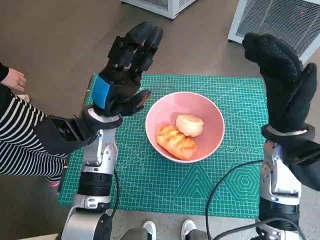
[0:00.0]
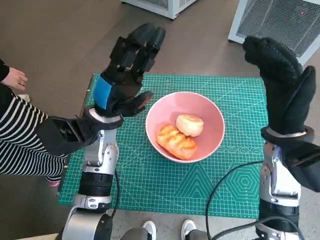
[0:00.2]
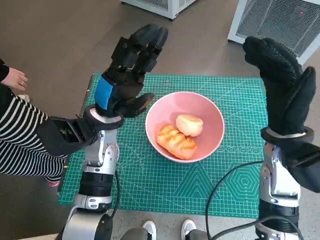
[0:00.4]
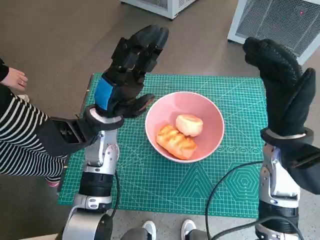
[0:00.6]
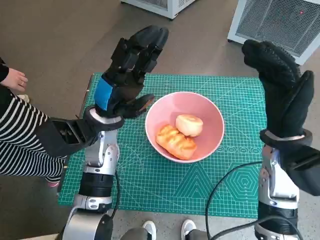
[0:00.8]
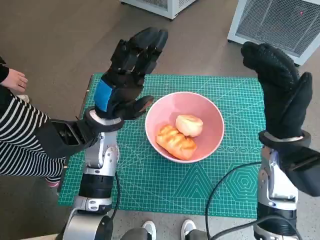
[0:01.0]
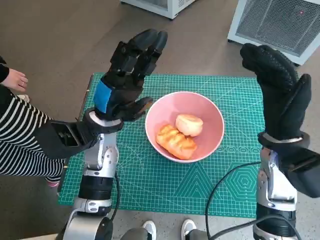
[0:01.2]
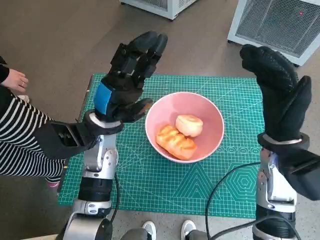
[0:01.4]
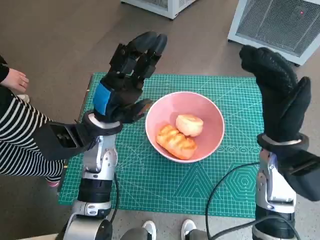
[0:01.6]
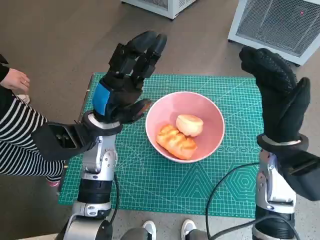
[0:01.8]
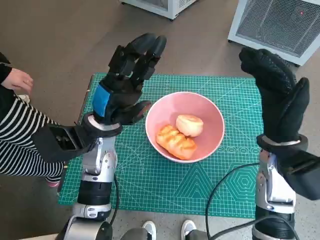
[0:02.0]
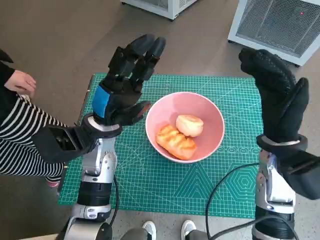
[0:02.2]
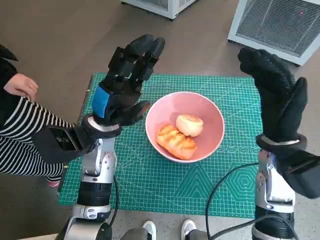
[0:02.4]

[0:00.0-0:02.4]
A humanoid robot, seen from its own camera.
Task of the whole recording: Push the bowl into the center of the table and put the bread into the bowl.
0:00.0 to 0:01.2: The hands stay close to where they were, moving slightly.
0:01.2 to 0:02.4: The two hands keep their place.

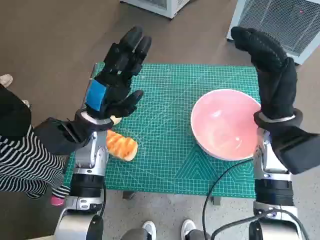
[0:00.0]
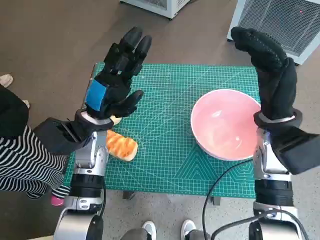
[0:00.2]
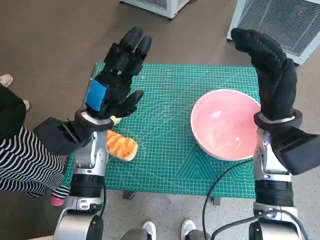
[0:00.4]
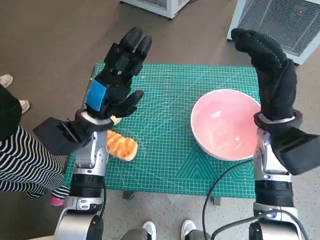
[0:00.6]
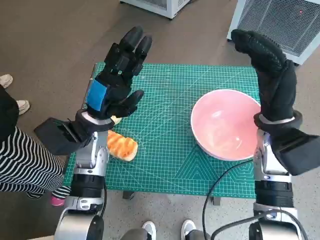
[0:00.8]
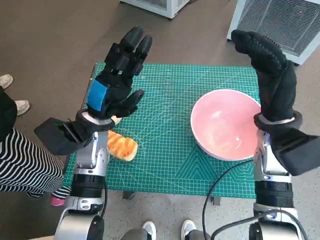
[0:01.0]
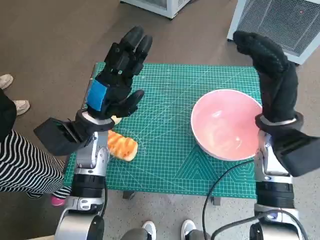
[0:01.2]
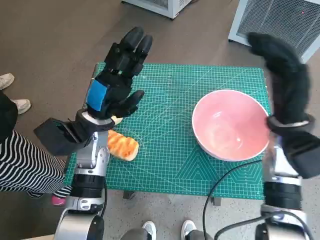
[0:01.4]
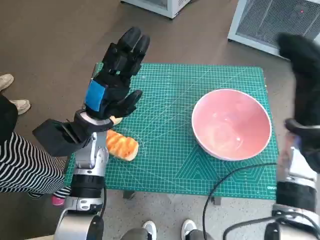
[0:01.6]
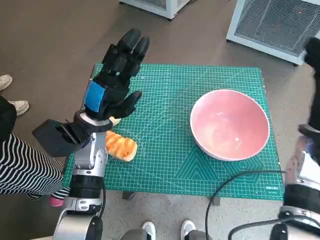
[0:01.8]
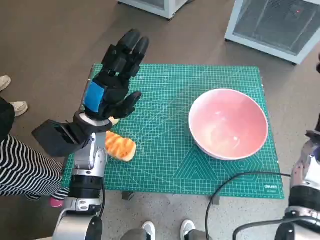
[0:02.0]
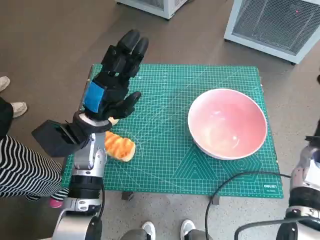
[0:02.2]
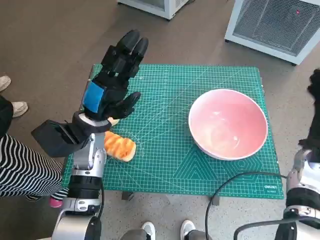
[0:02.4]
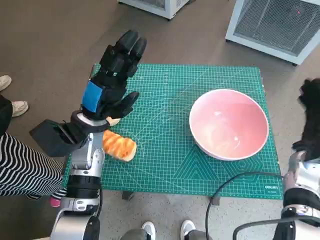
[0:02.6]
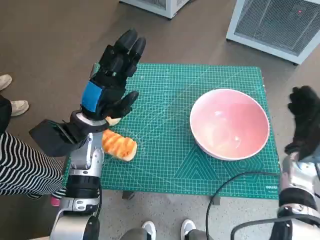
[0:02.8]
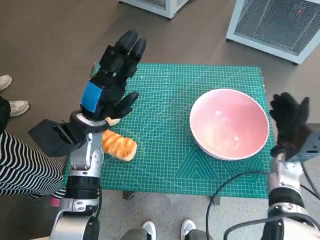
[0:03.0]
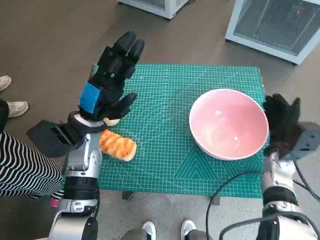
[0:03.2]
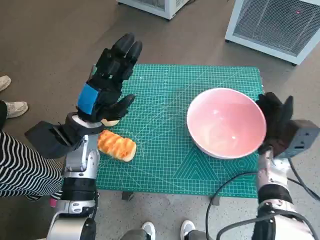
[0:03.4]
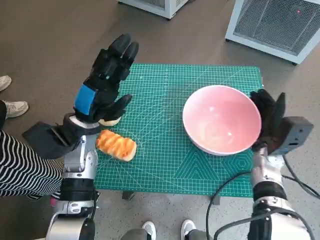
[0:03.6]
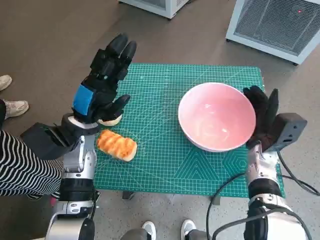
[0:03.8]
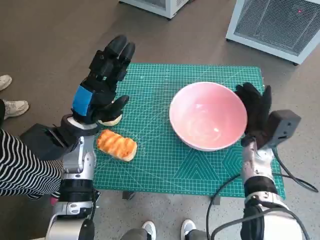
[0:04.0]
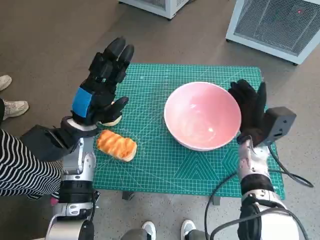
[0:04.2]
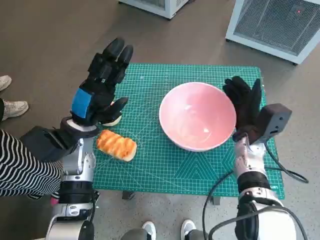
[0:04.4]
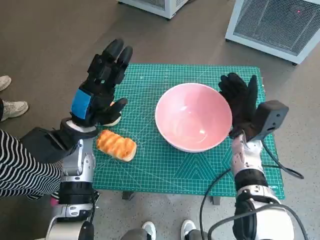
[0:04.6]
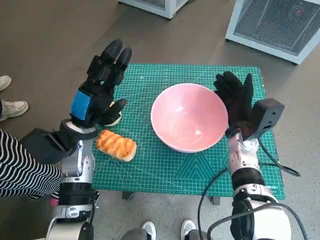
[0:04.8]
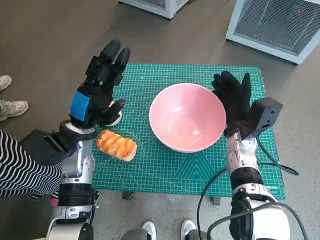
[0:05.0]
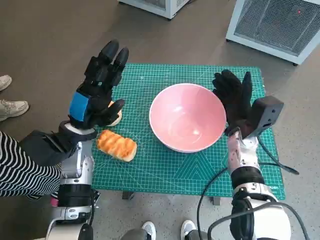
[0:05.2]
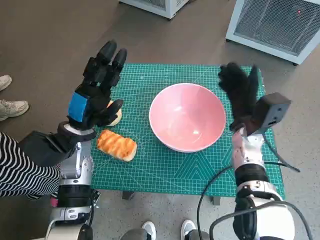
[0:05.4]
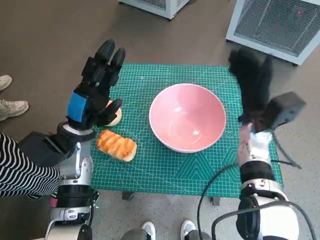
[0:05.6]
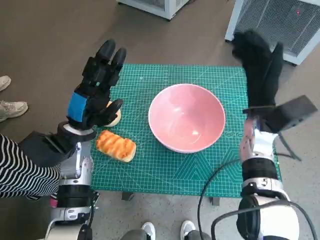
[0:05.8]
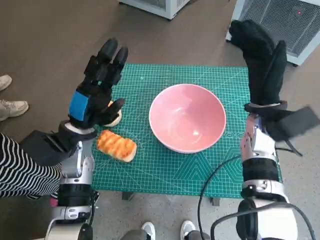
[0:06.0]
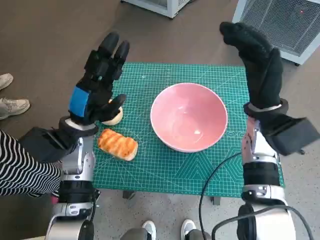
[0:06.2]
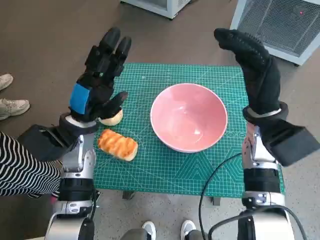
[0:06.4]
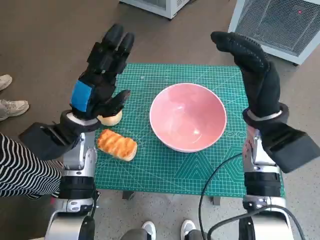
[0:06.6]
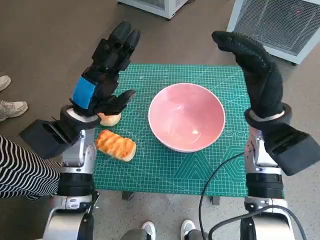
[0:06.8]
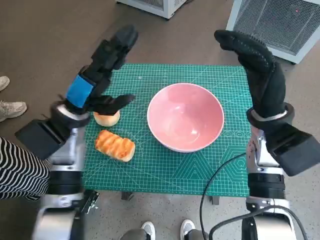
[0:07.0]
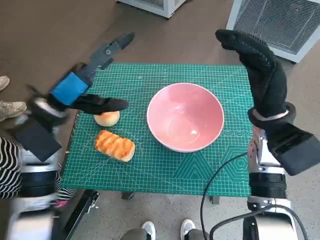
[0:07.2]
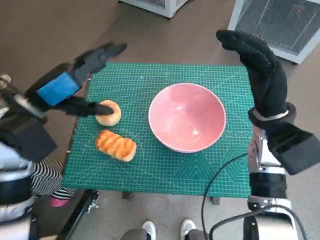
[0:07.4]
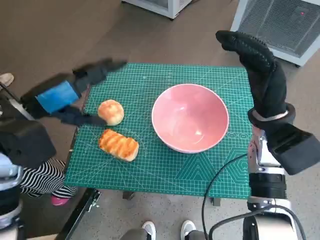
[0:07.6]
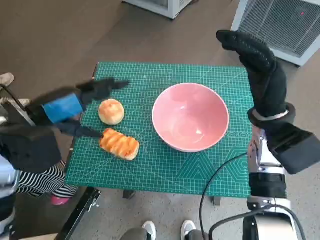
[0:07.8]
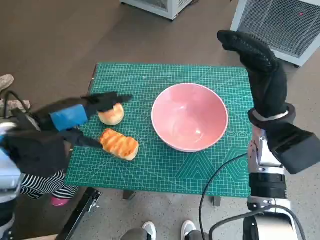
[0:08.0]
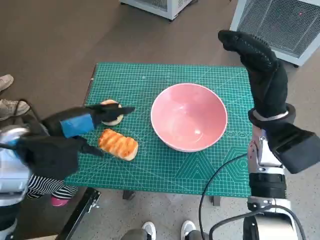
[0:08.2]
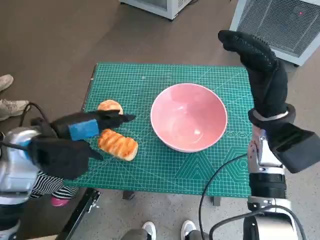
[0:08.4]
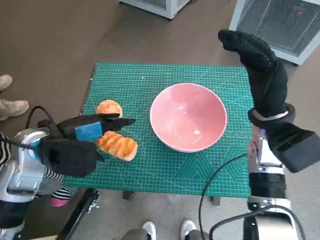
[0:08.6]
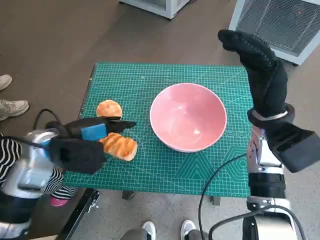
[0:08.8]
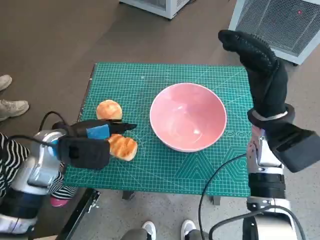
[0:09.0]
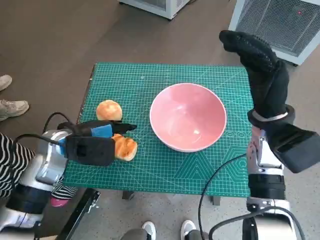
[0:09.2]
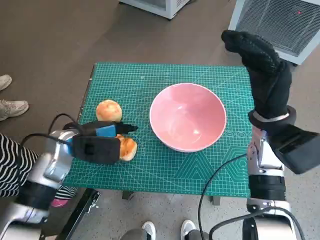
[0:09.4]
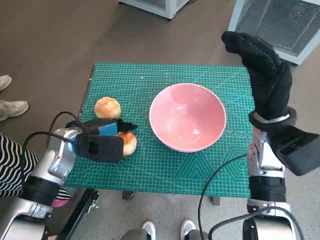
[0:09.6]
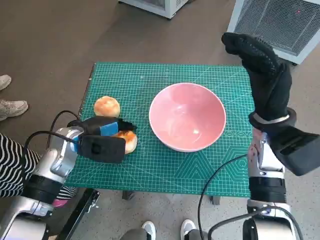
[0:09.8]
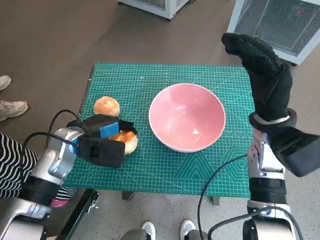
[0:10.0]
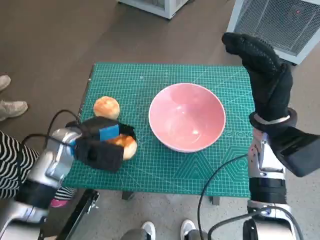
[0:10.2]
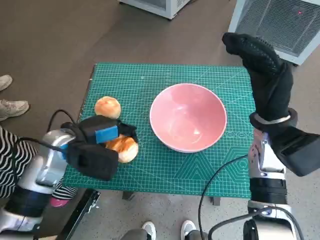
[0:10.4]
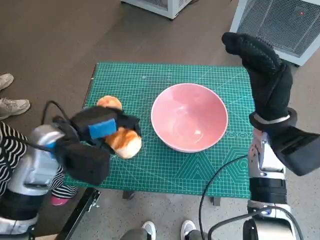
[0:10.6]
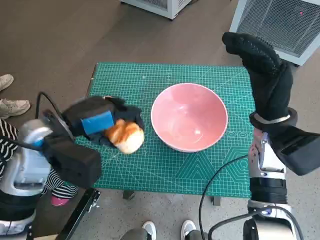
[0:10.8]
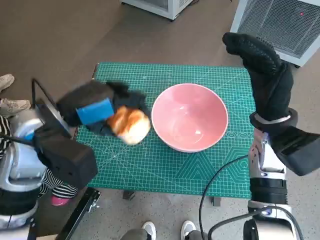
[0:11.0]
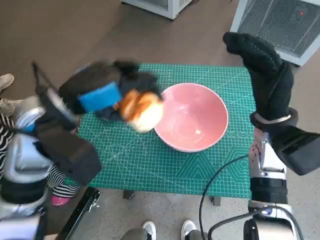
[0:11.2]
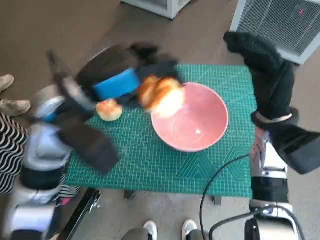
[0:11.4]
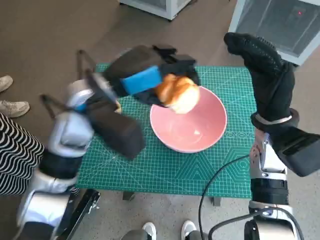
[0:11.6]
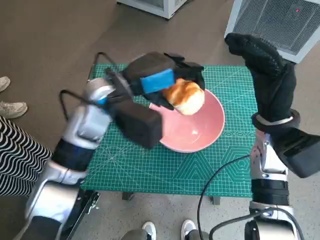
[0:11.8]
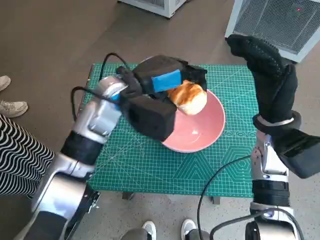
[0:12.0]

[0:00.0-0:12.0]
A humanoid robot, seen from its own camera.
Task of the whole recording: Push the bowl into the center of the table and put the bread into the bowl.
Step, 0:00.0 to 0:05.2: Move the pink bowl to the center of table with right hand.
Step, 0:05.4 to 0:10.0: Grasp the long bread with left hand.
0:01.6 to 0:03.0: The right hand travels downward by roughly 10 cm.
0:03.0 to 0:04.4: The right hand travels to the left by some 10 cm.
0:04.4 to 0:06.0: The right hand is displaced upward by roughly 10 cm.
0:06.0 to 0:07.6: The left hand heads upward, covering approximately 10 cm.
0:07.6 to 0:09.0: The left hand shifts about 10 cm downward.
0:09.0 to 0:10.4: The hands move only a little.
0:10.4 to 0:12.0: The left hand goes some 15 cm to the right, upward and forward.

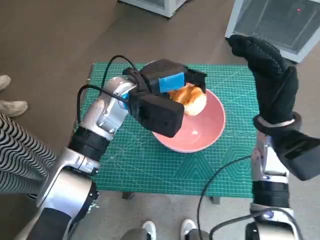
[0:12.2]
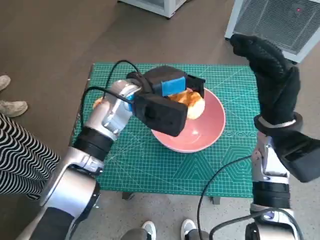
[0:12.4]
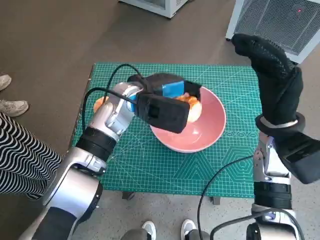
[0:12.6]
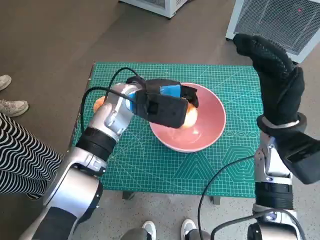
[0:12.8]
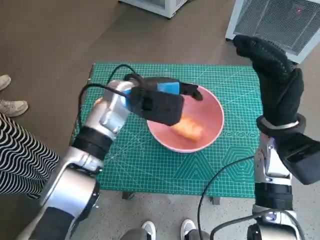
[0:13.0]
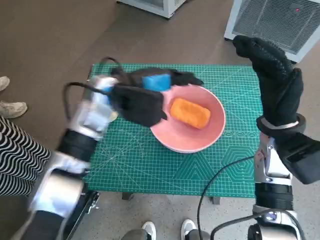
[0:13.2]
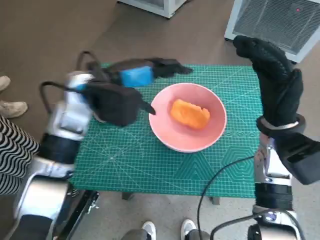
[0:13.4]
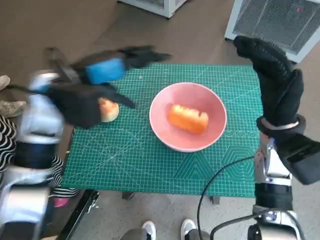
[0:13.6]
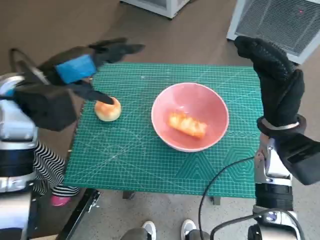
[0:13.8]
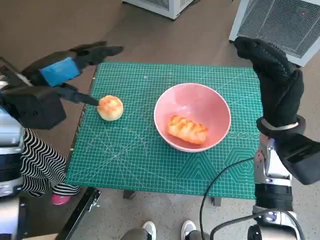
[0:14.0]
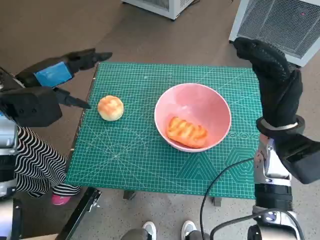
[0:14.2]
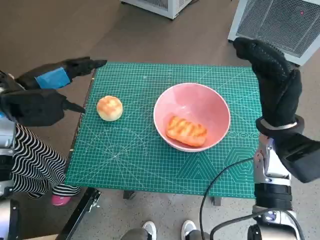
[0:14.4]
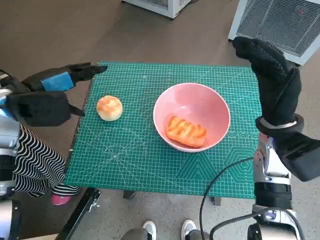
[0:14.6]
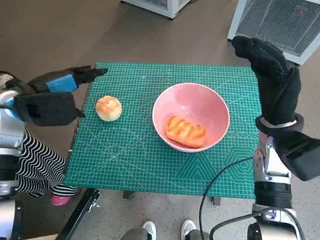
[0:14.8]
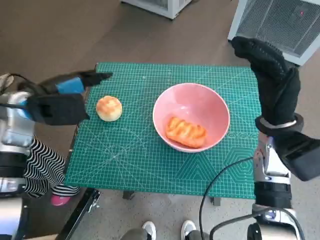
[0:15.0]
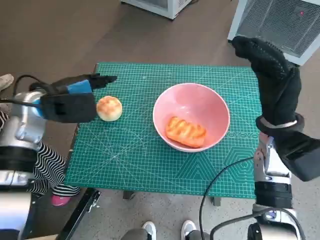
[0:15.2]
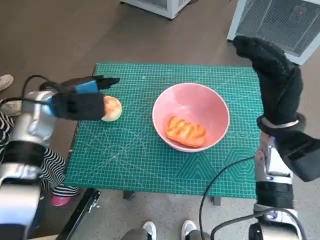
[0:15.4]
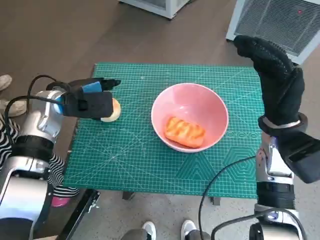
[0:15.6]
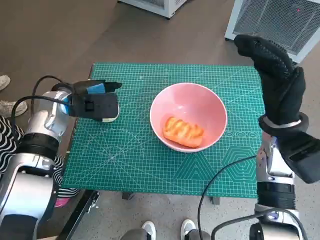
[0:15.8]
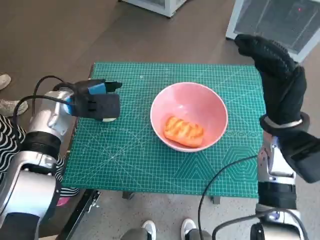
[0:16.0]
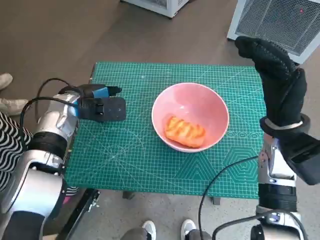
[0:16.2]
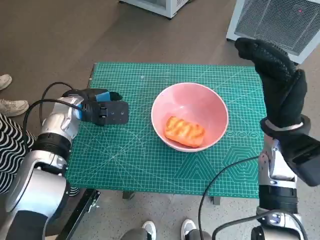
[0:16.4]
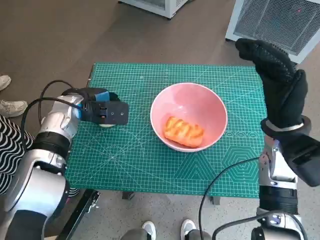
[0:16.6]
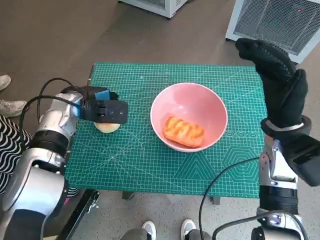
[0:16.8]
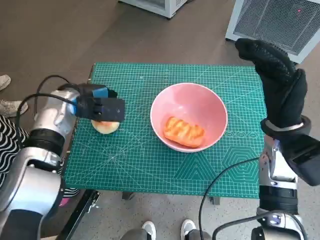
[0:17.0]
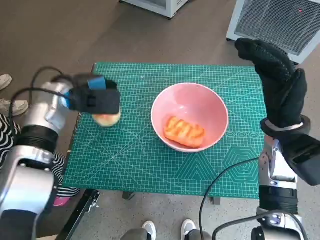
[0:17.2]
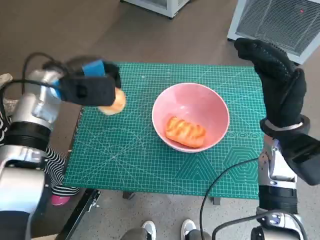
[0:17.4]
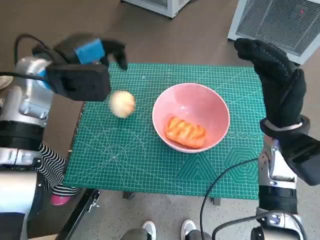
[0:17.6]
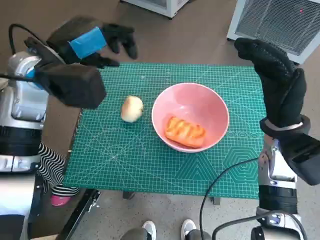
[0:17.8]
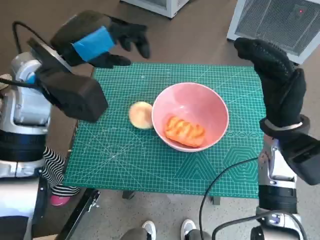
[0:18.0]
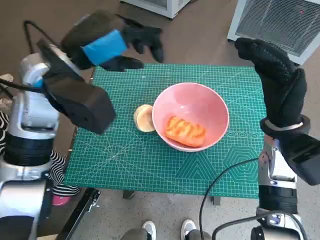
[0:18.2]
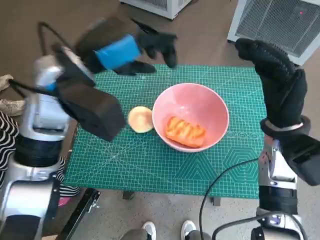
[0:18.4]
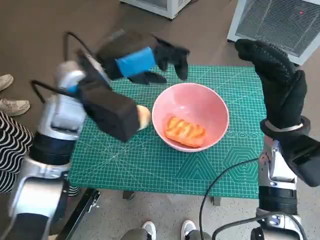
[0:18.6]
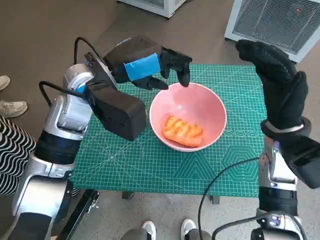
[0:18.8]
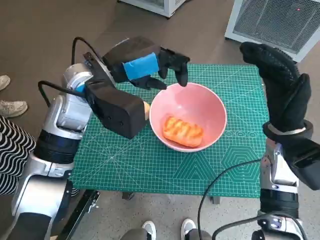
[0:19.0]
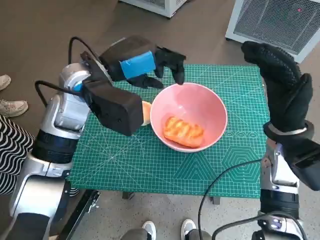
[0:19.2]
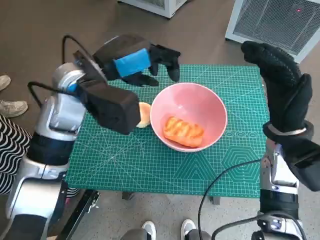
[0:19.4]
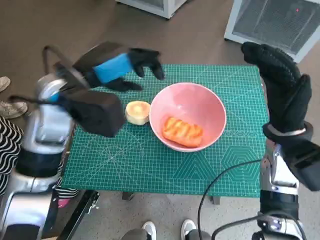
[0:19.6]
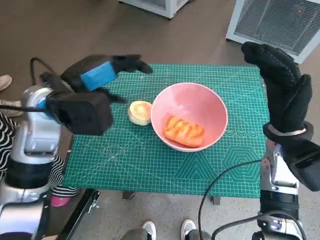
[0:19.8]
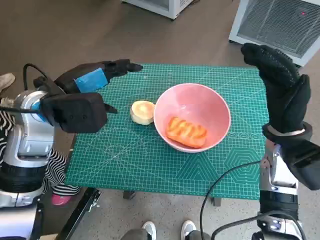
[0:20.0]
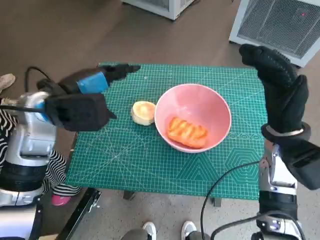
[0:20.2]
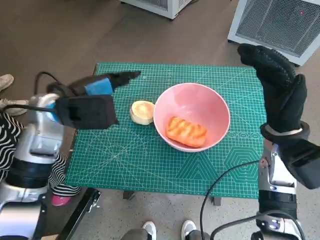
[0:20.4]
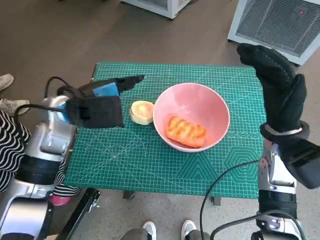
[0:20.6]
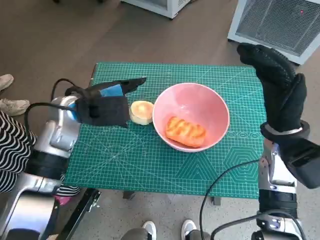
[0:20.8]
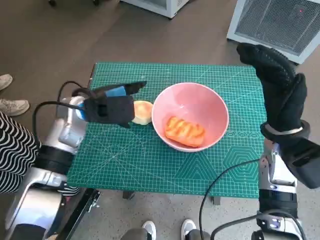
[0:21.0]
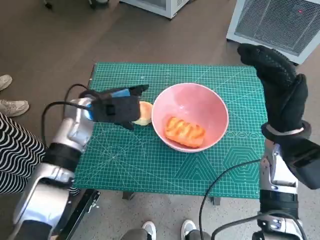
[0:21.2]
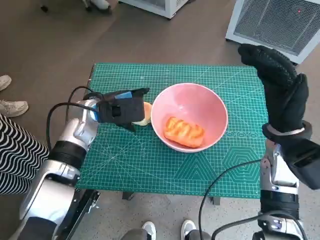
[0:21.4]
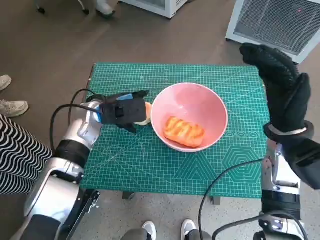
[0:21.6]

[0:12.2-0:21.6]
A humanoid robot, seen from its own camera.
Task of the whole recording: Push the bowl into the center of the table and put the bread into the bowl.
0:12.2 to 0:13.8: The left hand goes roughly 15 cm to the left.
0:13.8 to 0:15.4: The left hand travels downward by some 5 cm.
0:17.0 to 0:18.4: The left hand is displaced upward, to the right and backward by about 15 cm.
0:18.4 to 0:20.0: The left hand changes place by roughly 5 cm.
0:20.0 to 0:21.6: The left hand shifts approximately 10 cm downward and forward.
